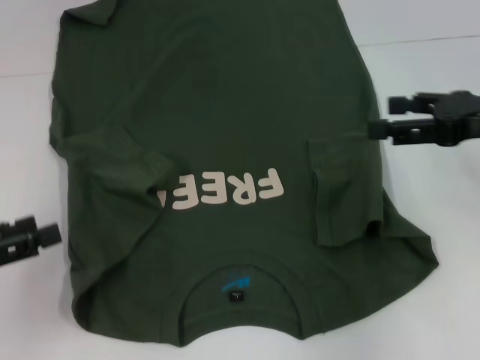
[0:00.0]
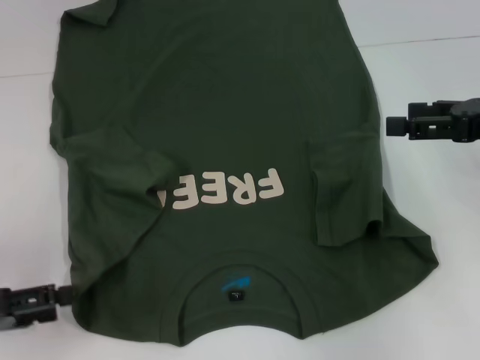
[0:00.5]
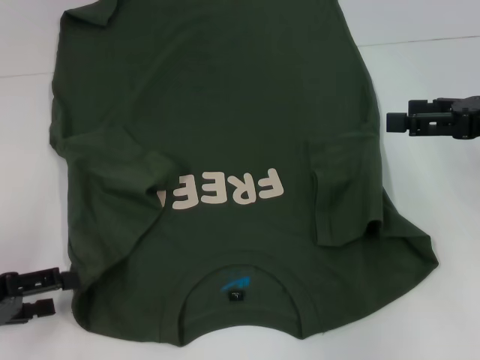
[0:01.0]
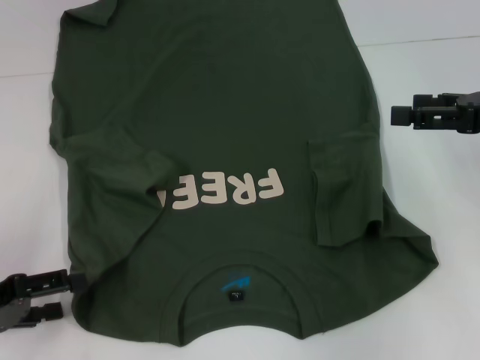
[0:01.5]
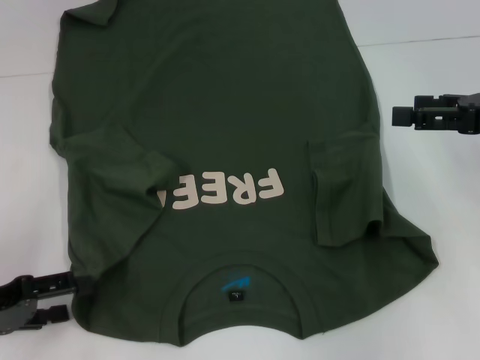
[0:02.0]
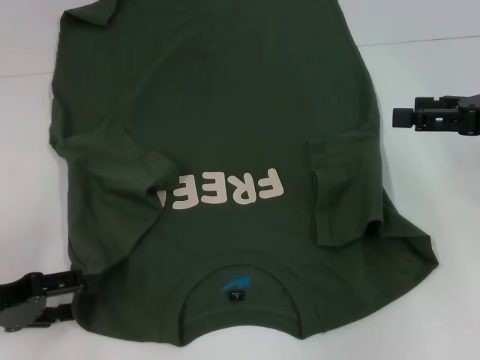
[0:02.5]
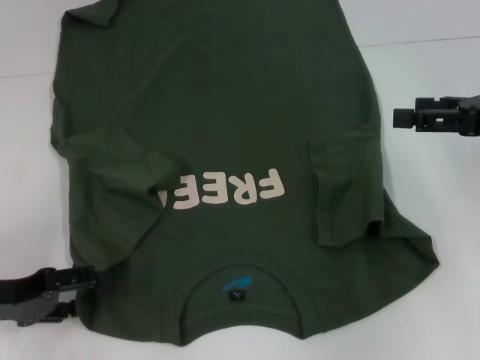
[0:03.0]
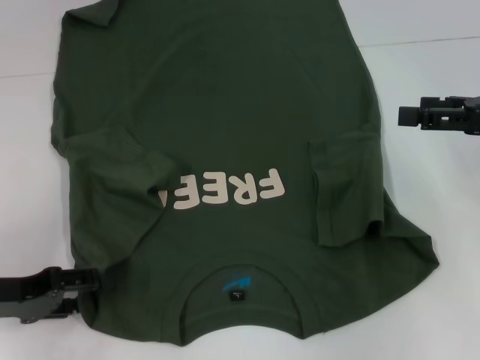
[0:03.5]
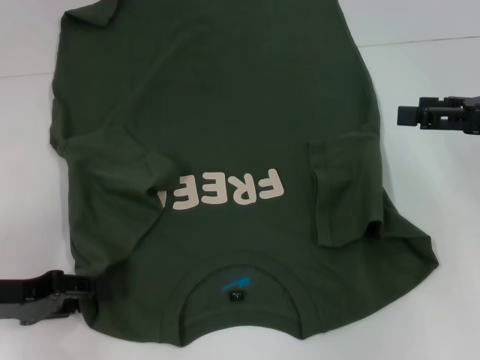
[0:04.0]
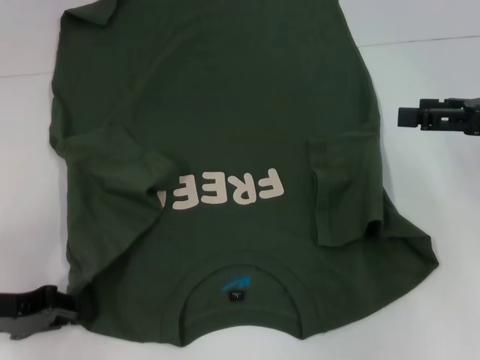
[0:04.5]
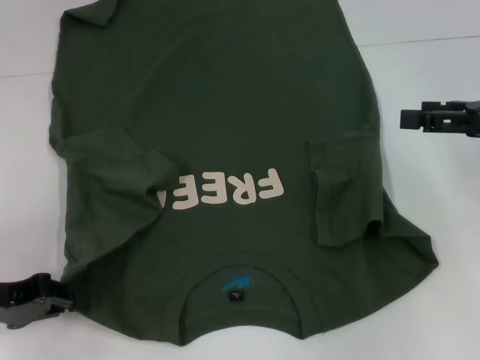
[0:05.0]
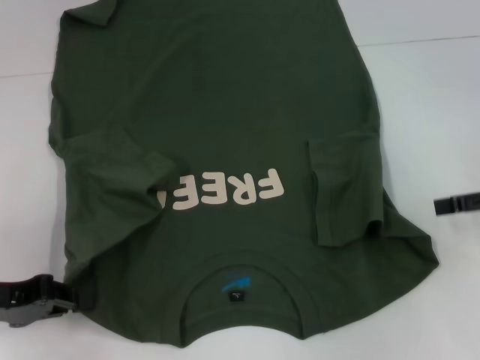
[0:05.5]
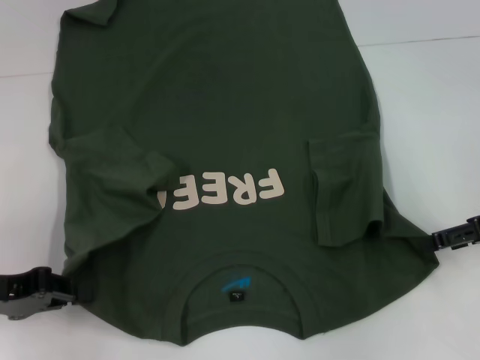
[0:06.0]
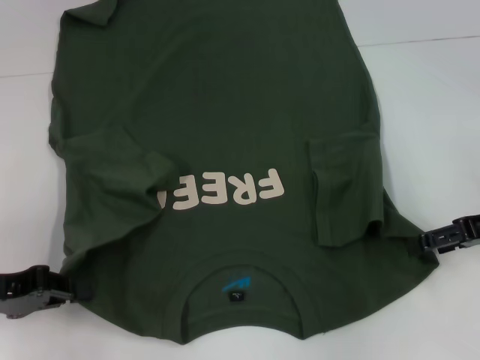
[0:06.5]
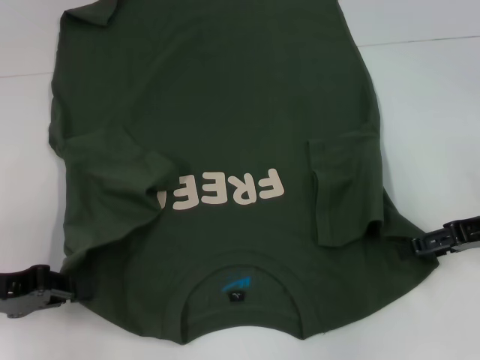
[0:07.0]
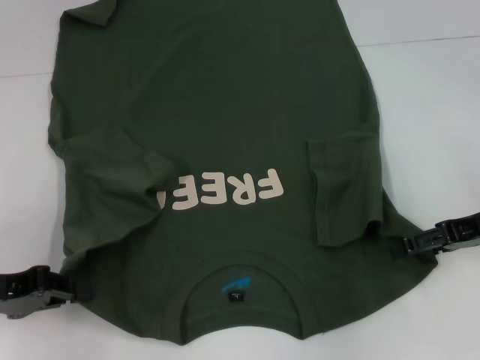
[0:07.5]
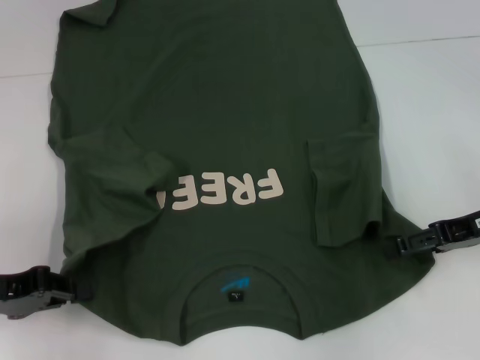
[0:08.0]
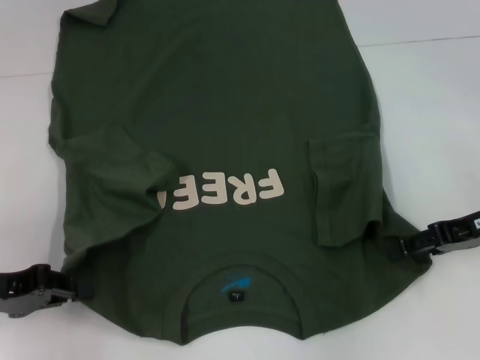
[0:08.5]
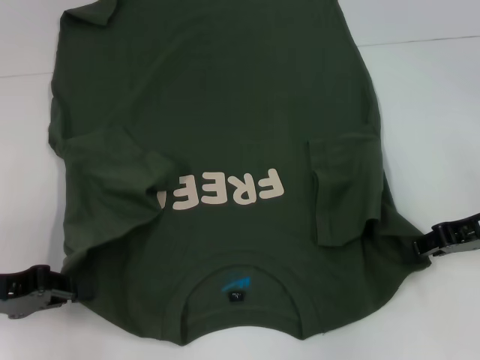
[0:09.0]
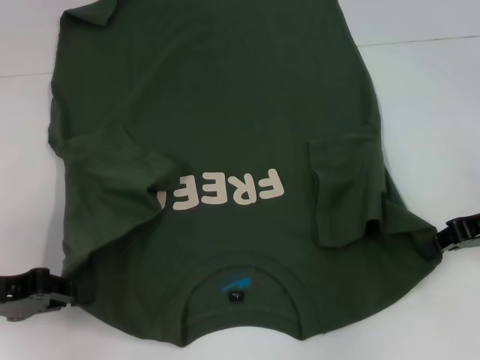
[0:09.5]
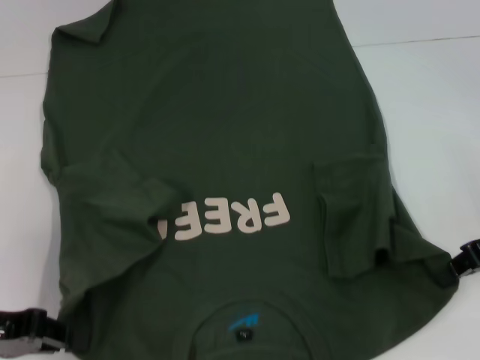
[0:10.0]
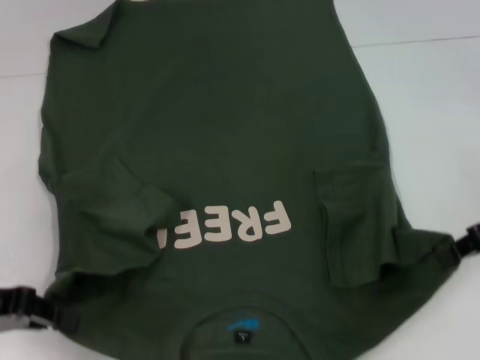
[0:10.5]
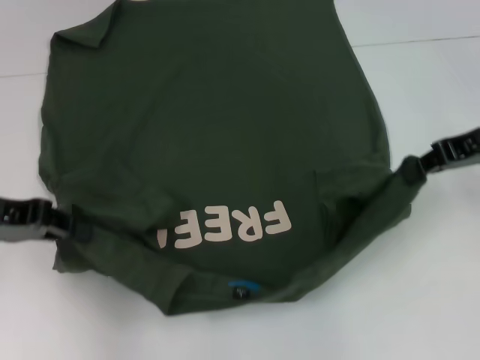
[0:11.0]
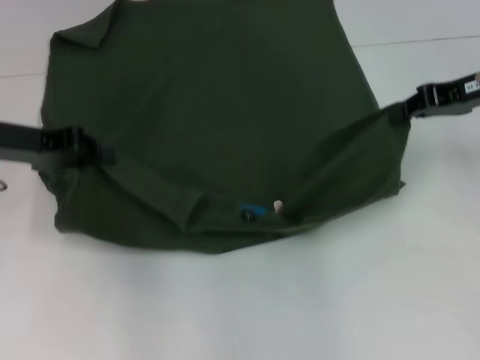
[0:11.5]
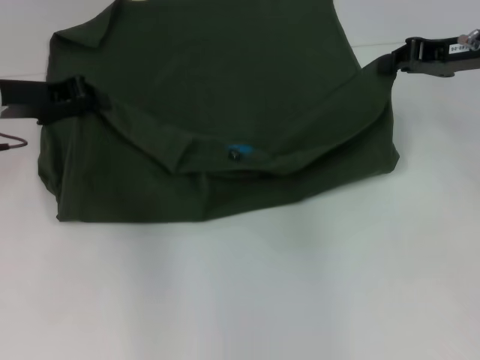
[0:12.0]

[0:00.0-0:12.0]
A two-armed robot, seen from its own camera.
Step, 0.0 to 6.5 s: Grab the bottom left corner with your left hand.
Step, 7.0 to 9.5 s: Grab the bottom right corner with your right hand.
2.0 to 4.0 s: There are only small adjustments of the grippers.
4.0 to 6.0 s: The right gripper is displaced downward by some 5 cm, while the left gripper closes up.
6.0 to 8.0 s: The grippers stay close to where they were, moving slightly.
8.0 to 10.0 s: The right gripper closes up.
10.0 to 12.0 s: Both grippers move forward and upward, roughly 15 cm.

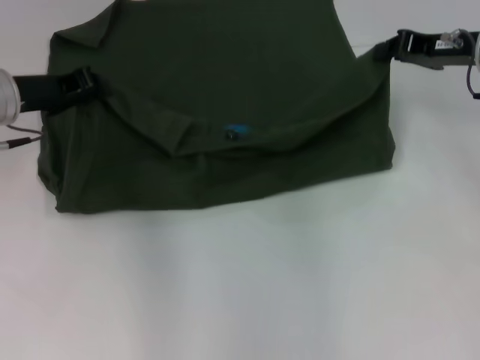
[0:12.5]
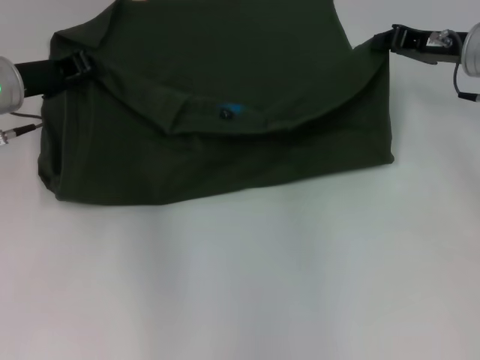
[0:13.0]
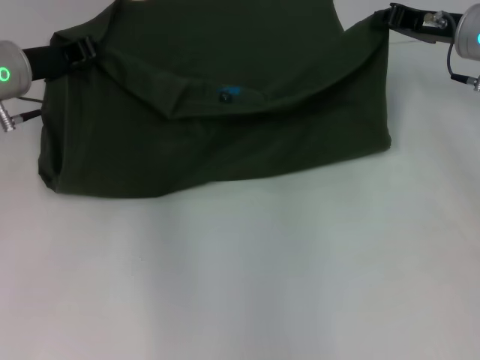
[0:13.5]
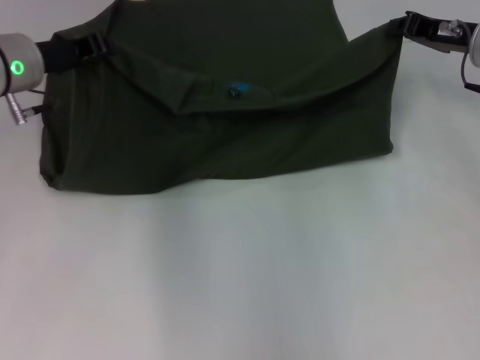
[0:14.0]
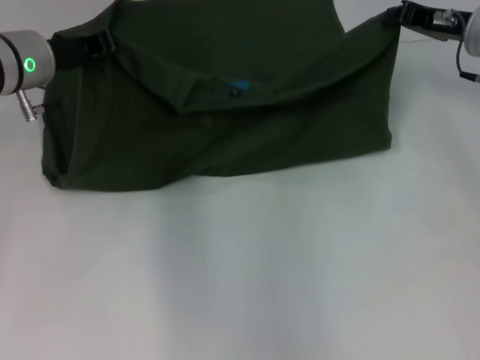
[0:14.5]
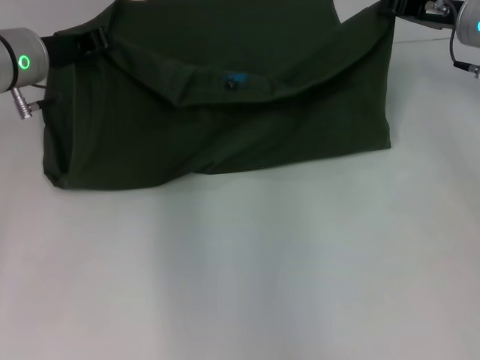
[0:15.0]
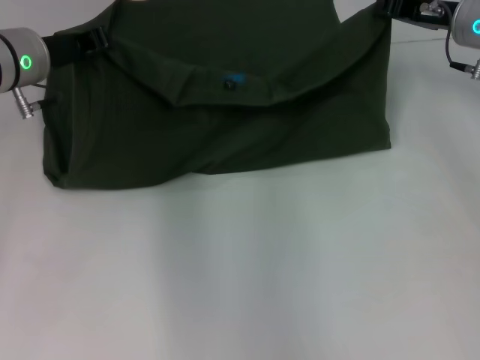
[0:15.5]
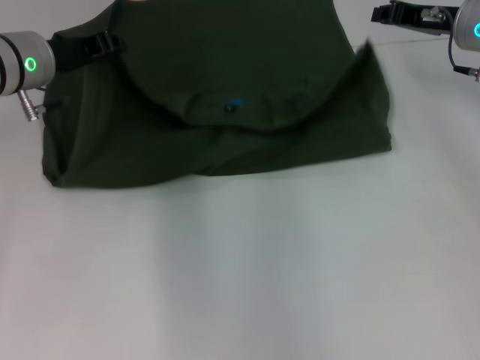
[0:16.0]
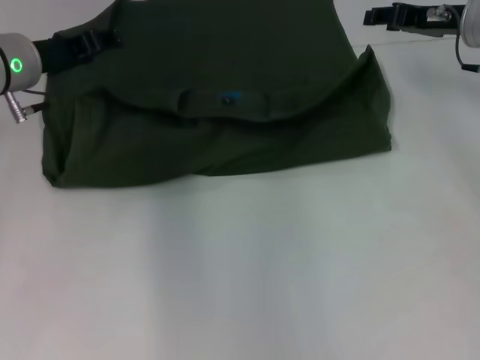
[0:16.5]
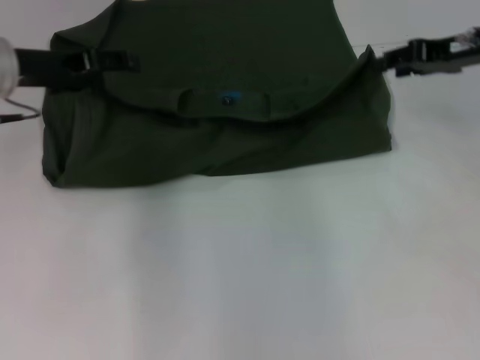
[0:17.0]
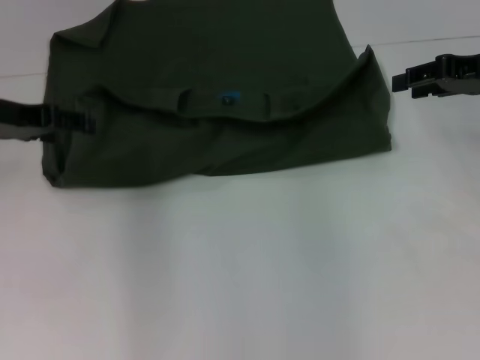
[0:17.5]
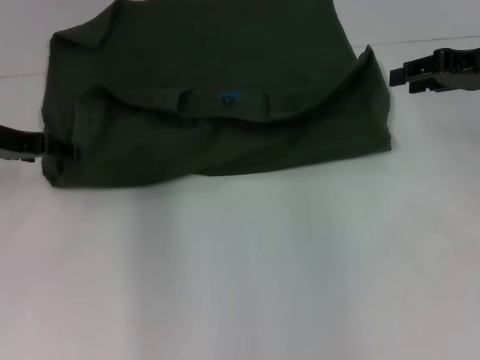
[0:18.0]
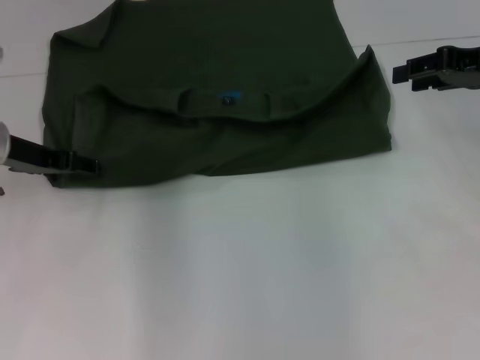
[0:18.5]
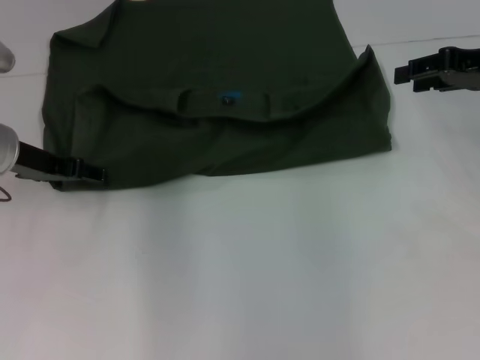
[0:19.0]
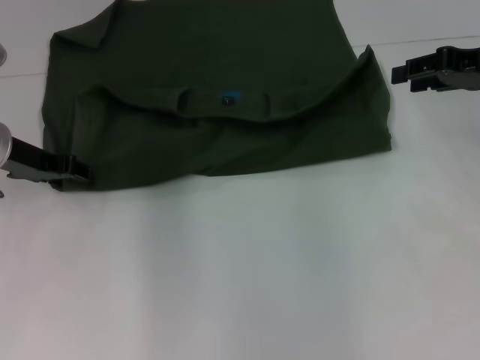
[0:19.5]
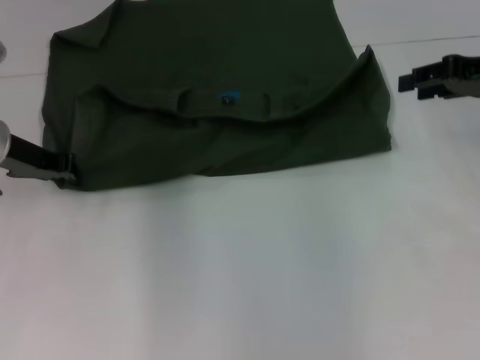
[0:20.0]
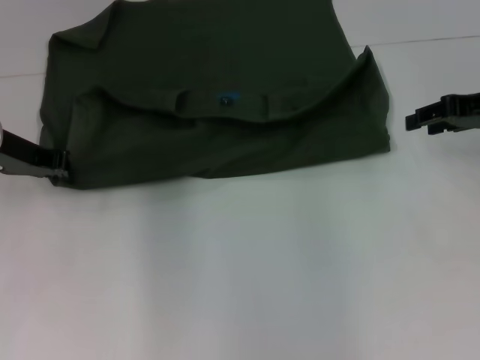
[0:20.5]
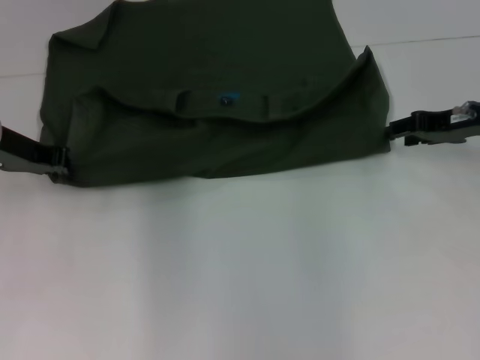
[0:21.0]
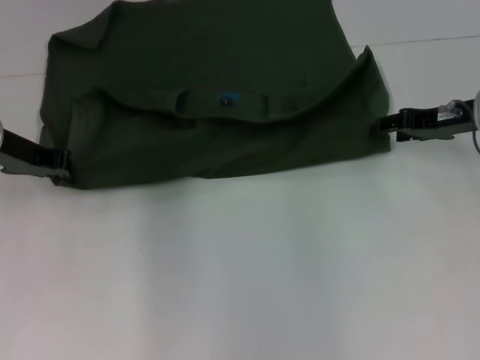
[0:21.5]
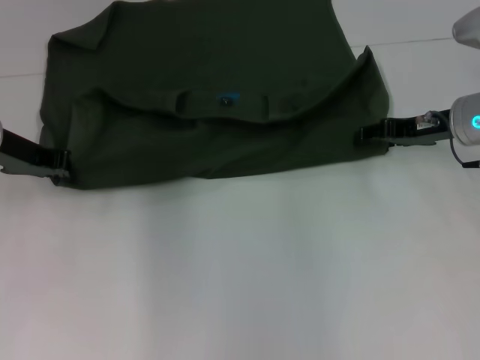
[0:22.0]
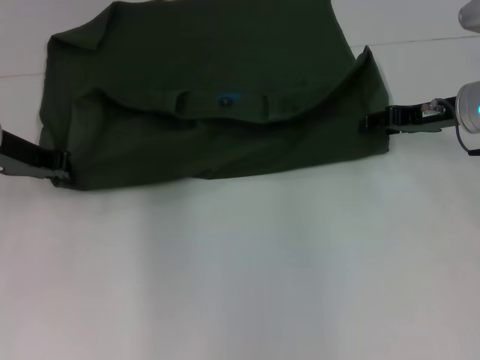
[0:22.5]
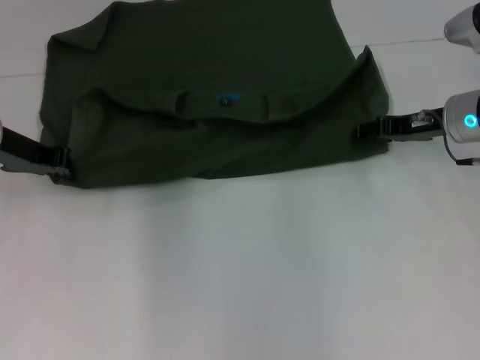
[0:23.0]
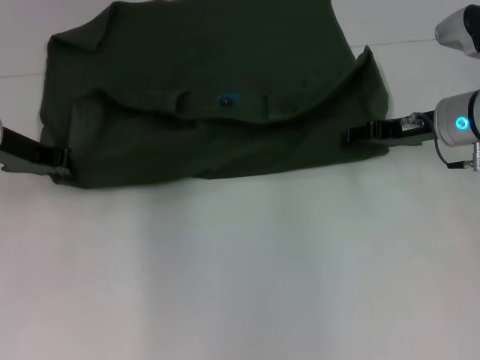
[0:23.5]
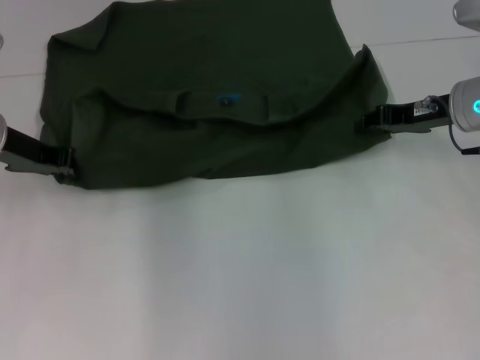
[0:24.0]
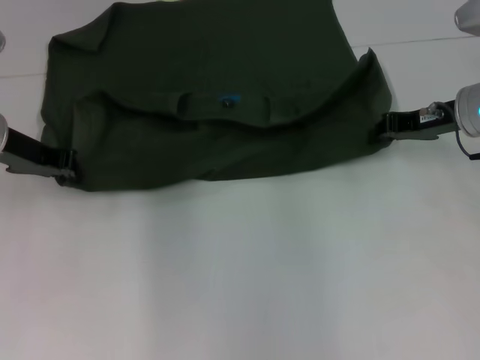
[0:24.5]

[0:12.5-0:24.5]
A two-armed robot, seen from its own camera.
Step, 12.5 to 16.5 s: Fold the clothes with your left hand.
Step, 12.5 to 16.5 s: Fold the clothes with your right hand.
12.5 to 14.5 s: The grippers move only a little.
14.5 to 16.5 s: The right gripper opens. The left gripper opens.
16.5 to 18.5 s: The left gripper moves about 5 cm, and opens up, while the right gripper travels backward by about 5 cm.
18.5 to 20.5 s: The left gripper closes up.
20.5 to 22.5 s: The right gripper changes place by roughly 5 cm.
22.5 to 24.5 s: The right gripper closes its fingers.

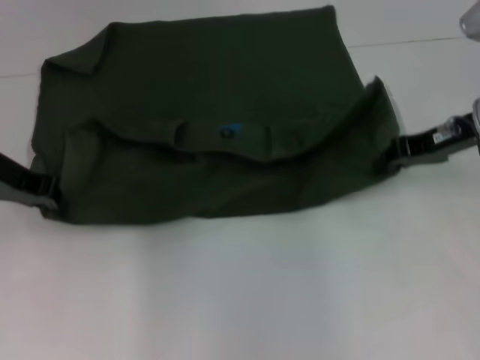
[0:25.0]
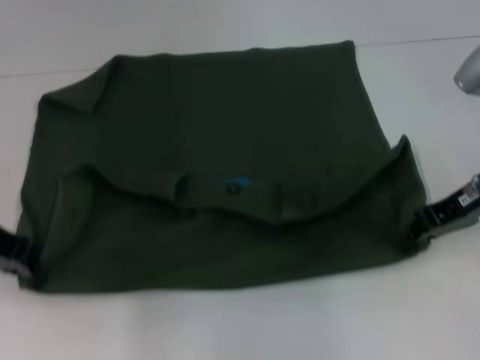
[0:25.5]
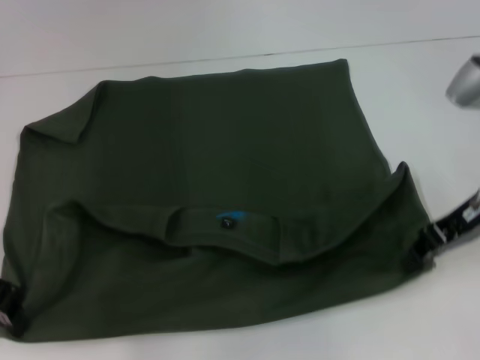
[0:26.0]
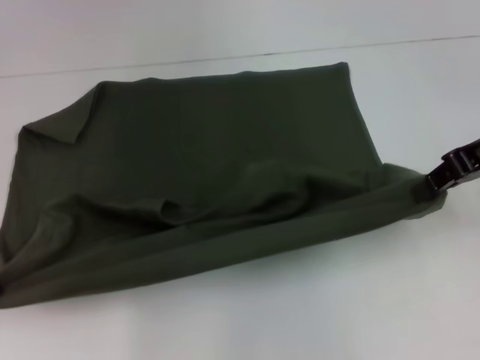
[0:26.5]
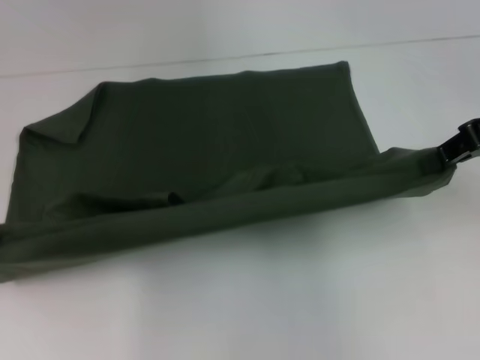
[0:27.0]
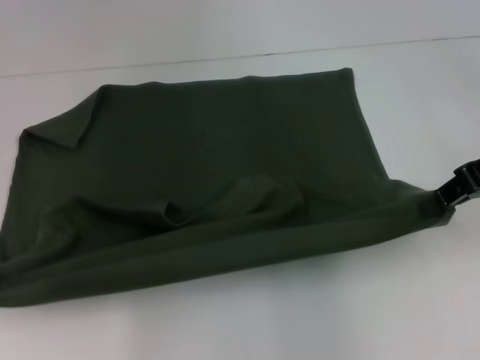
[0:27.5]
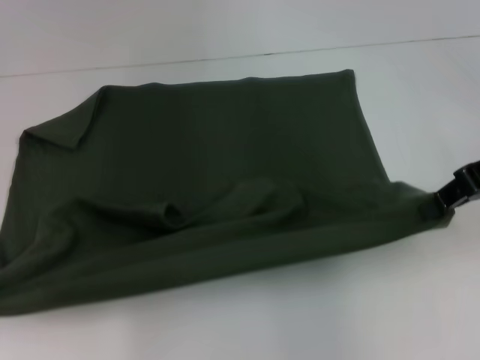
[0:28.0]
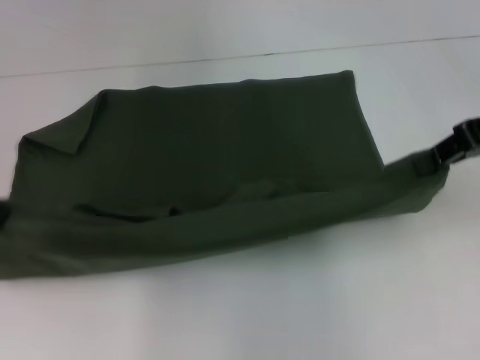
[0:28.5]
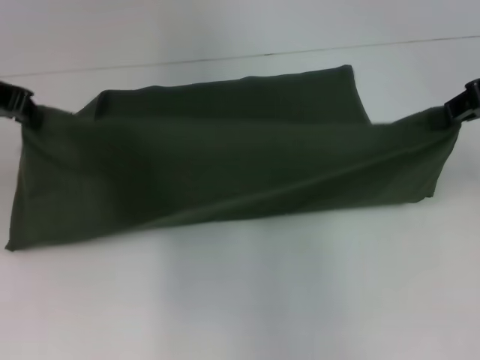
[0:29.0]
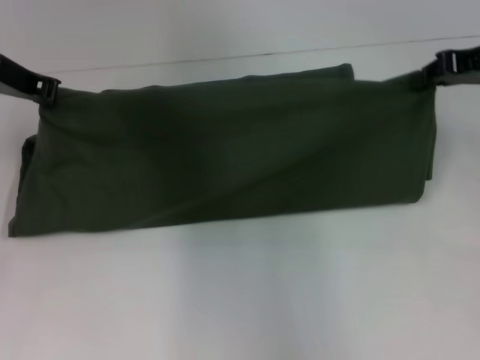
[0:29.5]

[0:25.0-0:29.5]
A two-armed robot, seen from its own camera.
25.0 to 27.0 s: Both grippers move upward, roughly 10 cm.
27.0 to 29.5 s: The right gripper heads forward, covering approximately 5 cm, while the left gripper is displaced forward and to the right by about 10 cm.
